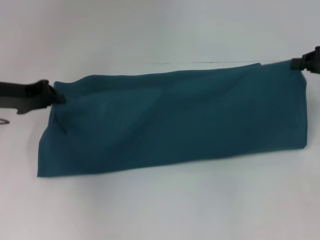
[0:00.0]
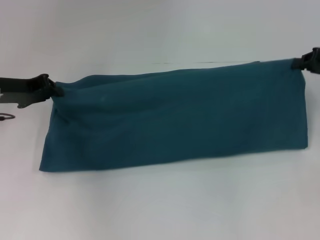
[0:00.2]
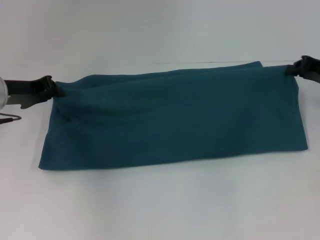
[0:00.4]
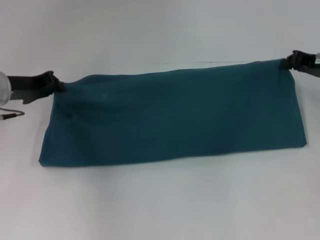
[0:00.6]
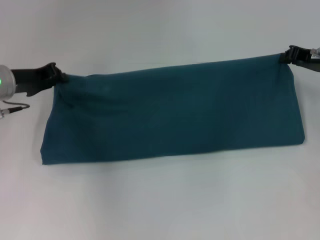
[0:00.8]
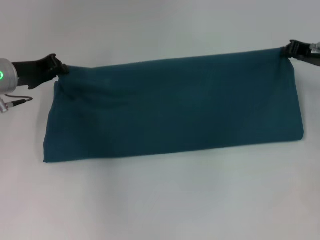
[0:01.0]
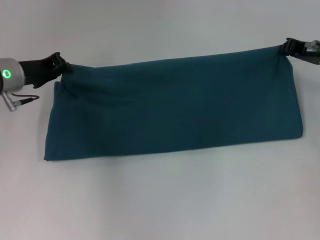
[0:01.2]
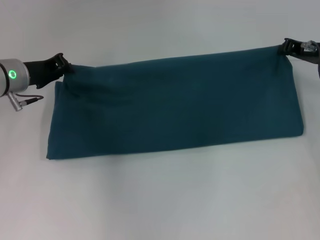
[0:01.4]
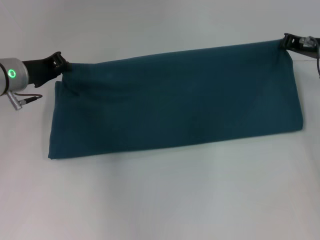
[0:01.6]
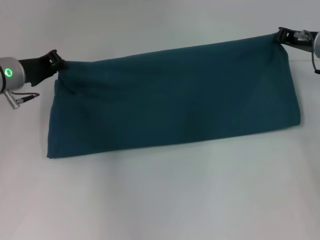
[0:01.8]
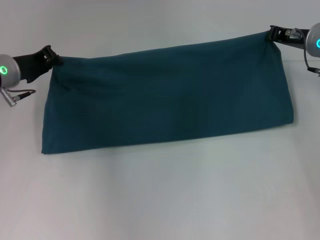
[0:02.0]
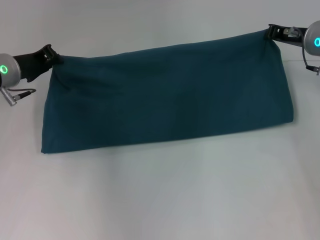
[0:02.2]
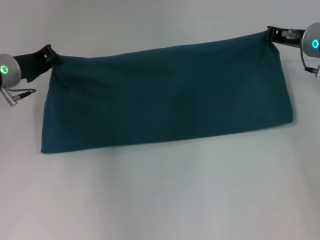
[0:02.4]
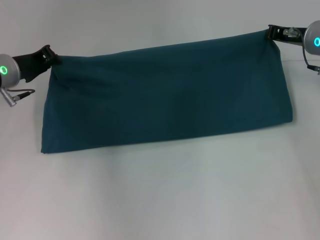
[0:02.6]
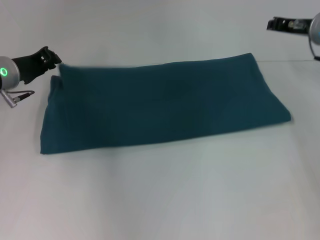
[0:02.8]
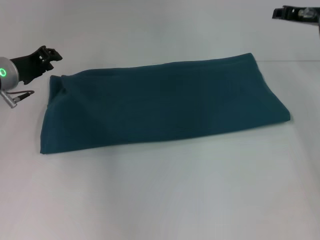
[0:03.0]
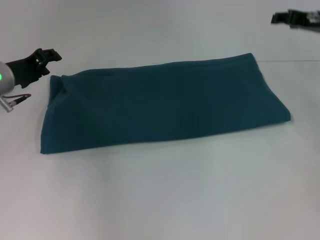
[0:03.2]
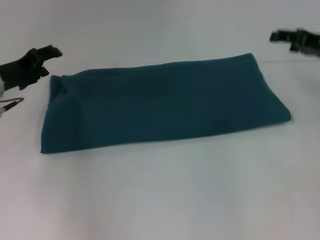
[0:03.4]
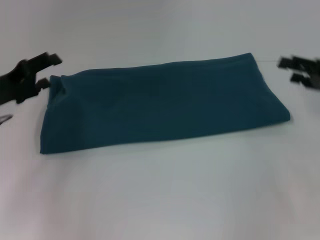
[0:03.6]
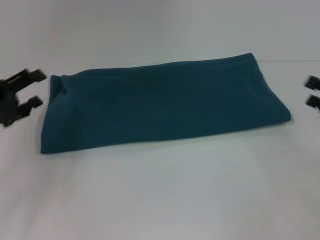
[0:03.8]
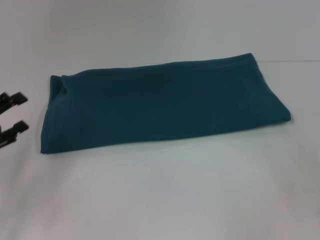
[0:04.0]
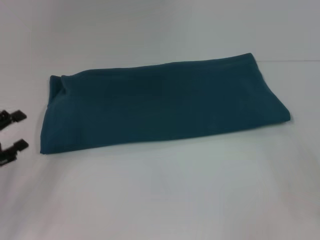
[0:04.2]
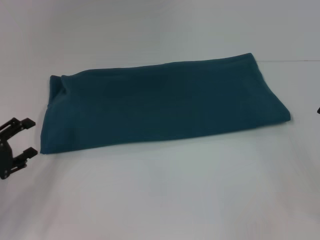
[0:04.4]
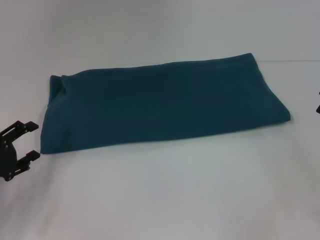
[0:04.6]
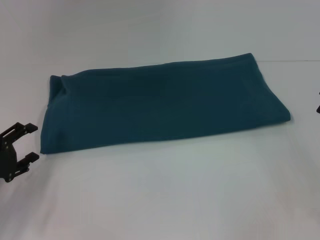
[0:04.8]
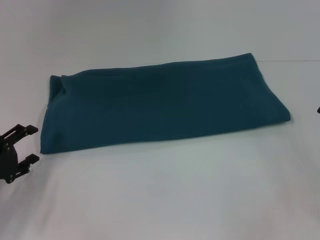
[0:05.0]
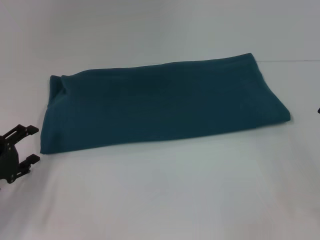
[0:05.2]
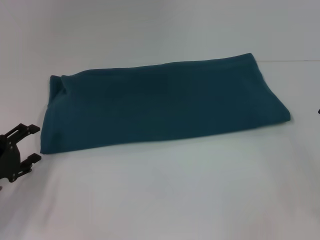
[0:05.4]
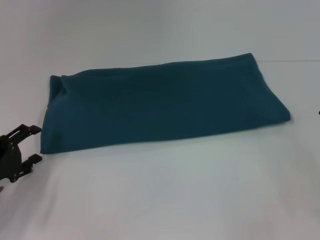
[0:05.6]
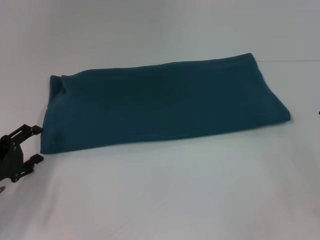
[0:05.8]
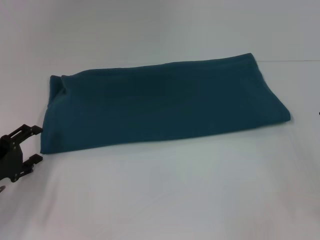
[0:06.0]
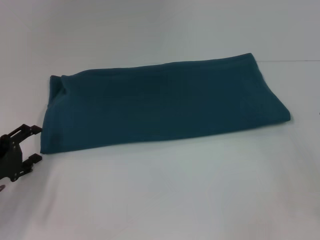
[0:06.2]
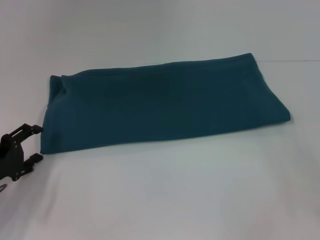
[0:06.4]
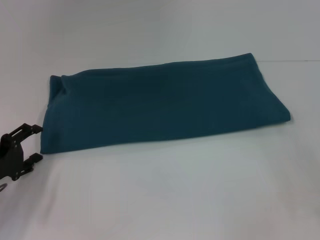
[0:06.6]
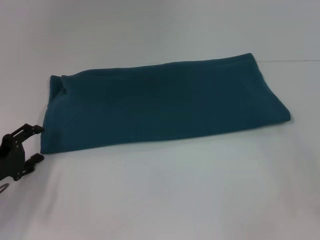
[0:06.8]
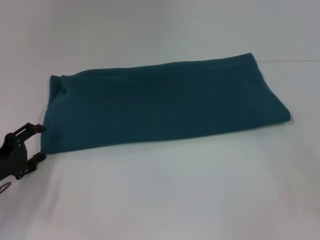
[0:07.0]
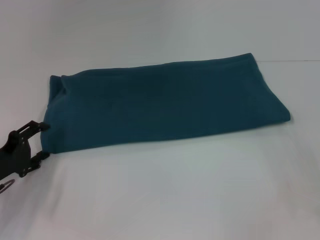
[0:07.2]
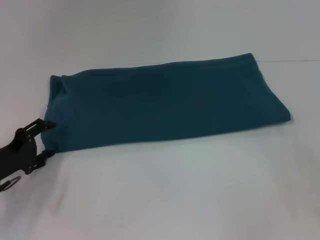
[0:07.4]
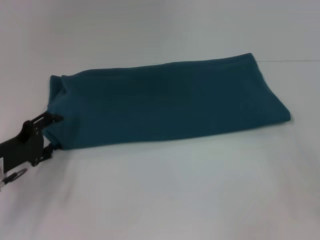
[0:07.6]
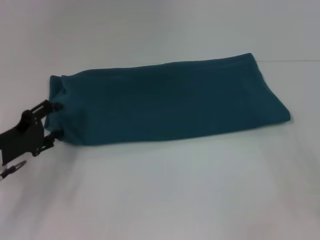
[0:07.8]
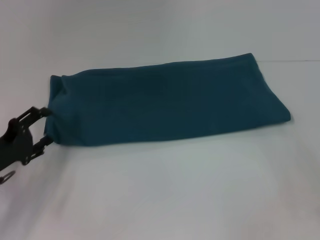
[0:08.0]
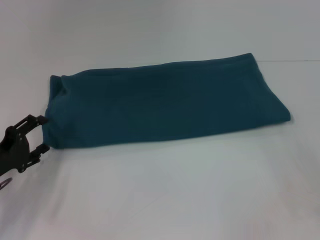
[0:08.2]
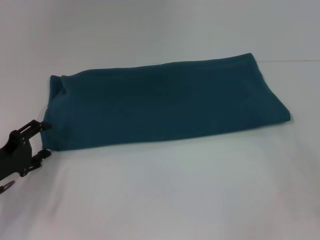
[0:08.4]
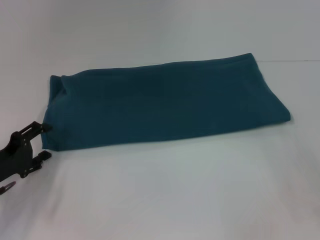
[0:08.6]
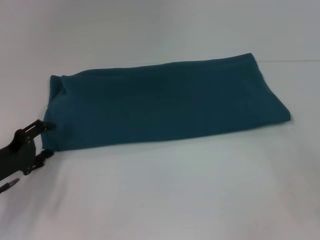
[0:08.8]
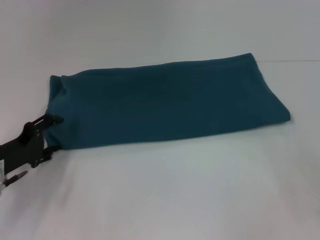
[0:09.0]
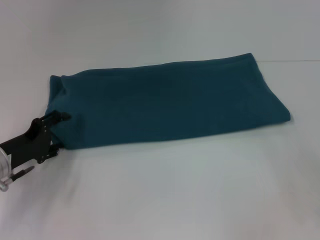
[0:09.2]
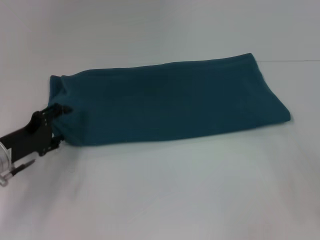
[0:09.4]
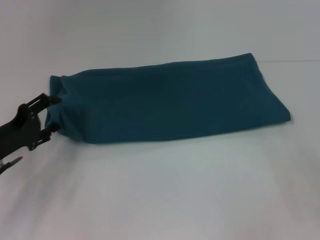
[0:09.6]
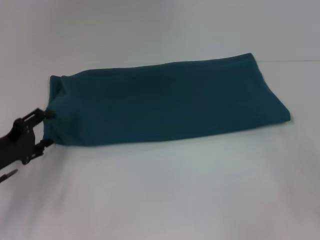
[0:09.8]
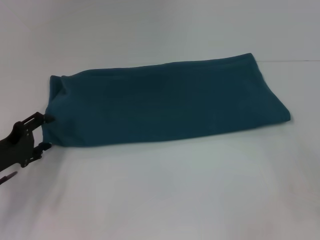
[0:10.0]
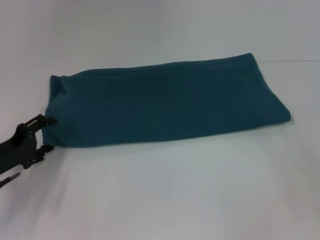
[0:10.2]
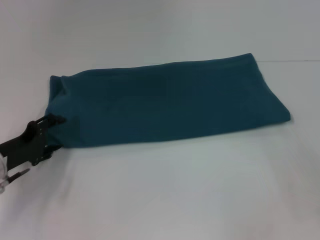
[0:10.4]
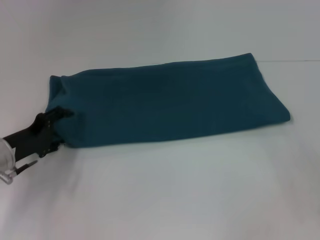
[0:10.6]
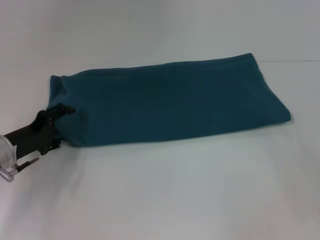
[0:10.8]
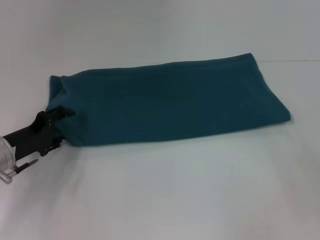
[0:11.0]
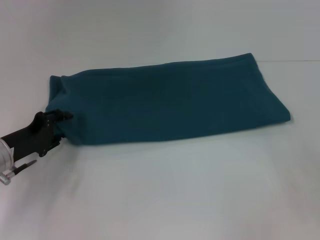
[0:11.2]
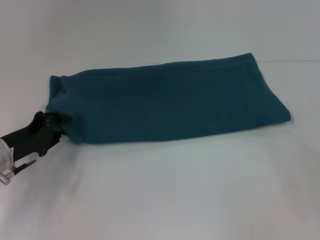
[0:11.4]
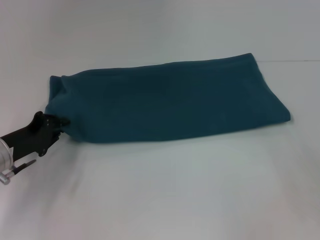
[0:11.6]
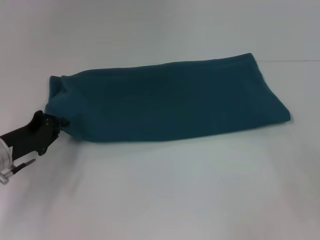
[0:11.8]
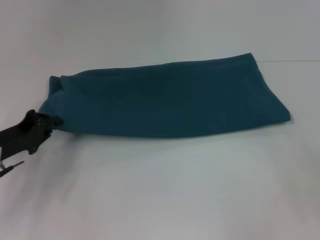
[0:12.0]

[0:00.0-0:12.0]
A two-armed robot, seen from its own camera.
Step, 0:00.0 to 0:03.0: Fold the clothes to the right.
0:00.0 to 0:01.6: The right gripper goes approximately 10 cm to the left and forward, while the left gripper ends up approximately 5 cm from where it was.
0:01.6 to 0:03.0: The grippers move only a little.
0:03.0 to 0:04.4: The right gripper is displaced backward and to the right by approximately 25 cm, and opens, while the left gripper shifts some 15 cm backward, and opens.
0:04.4 to 0:06.0: The grippers make only small movements.
0:06.0 to 0:07.6: There are only small adjustments of the grippers.
0:10.4 to 0:12.0: The left gripper closes up.

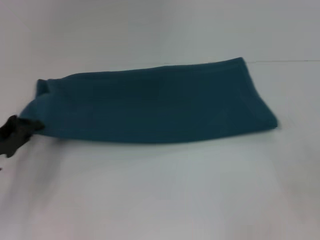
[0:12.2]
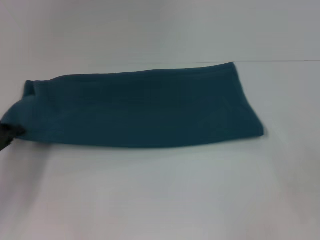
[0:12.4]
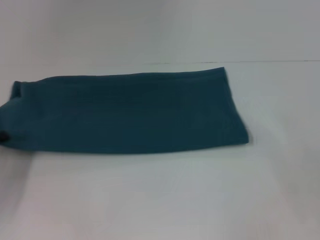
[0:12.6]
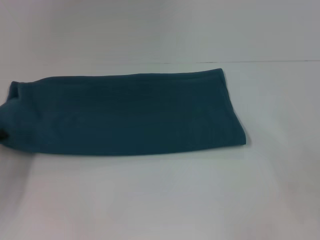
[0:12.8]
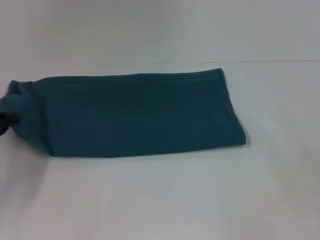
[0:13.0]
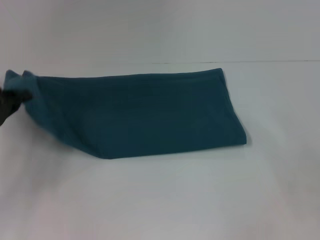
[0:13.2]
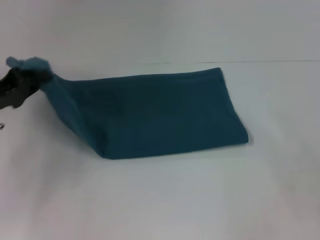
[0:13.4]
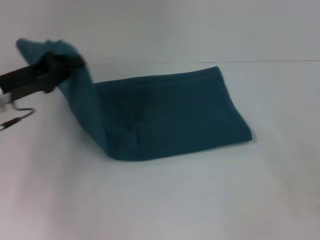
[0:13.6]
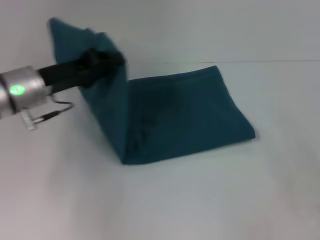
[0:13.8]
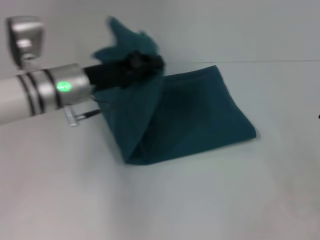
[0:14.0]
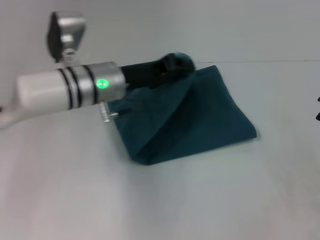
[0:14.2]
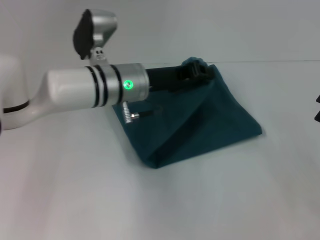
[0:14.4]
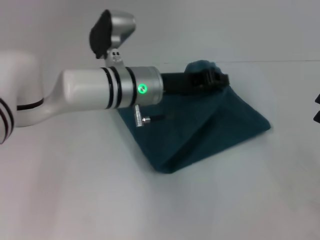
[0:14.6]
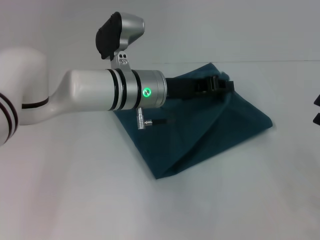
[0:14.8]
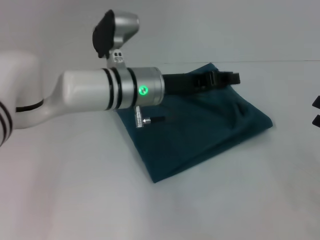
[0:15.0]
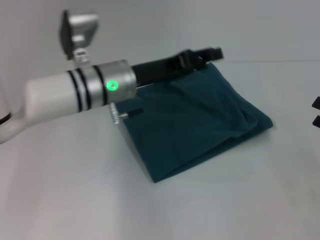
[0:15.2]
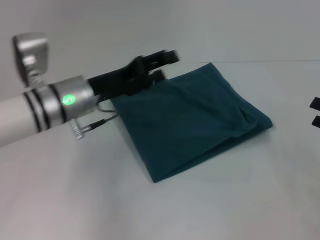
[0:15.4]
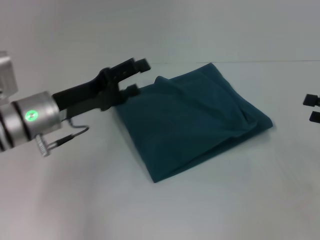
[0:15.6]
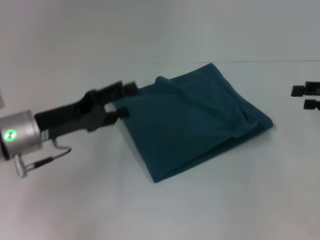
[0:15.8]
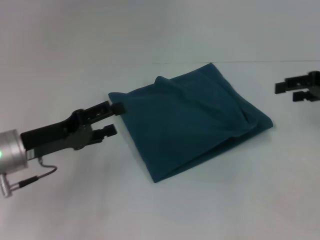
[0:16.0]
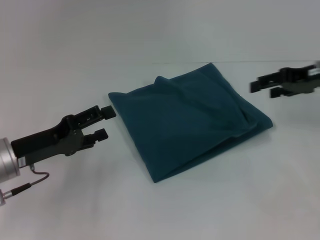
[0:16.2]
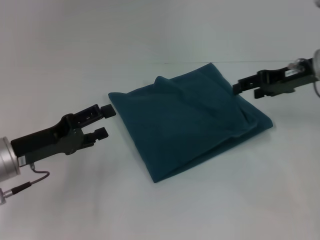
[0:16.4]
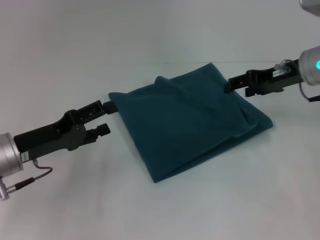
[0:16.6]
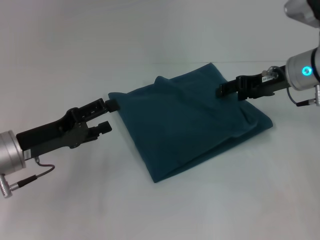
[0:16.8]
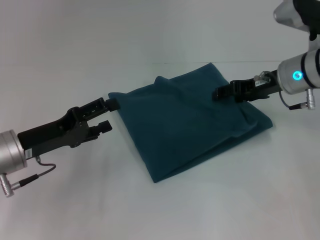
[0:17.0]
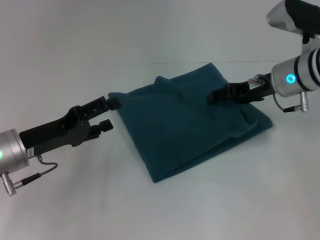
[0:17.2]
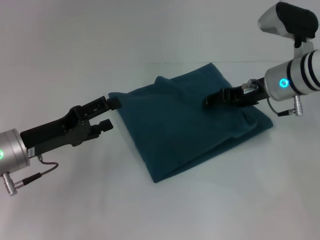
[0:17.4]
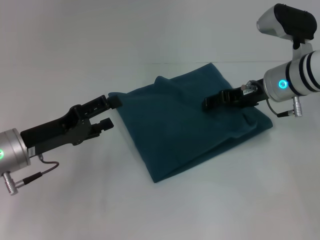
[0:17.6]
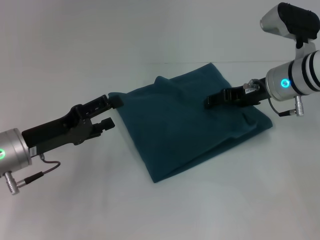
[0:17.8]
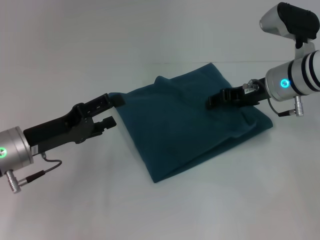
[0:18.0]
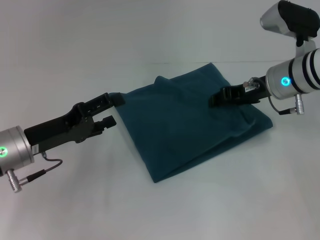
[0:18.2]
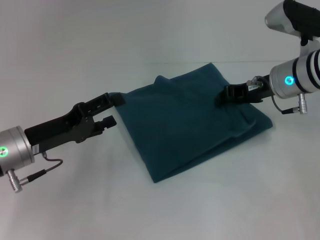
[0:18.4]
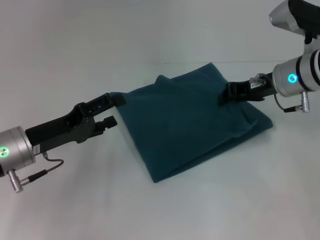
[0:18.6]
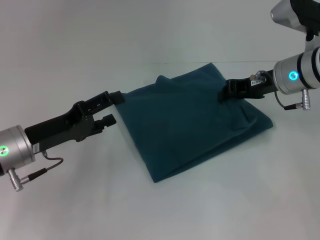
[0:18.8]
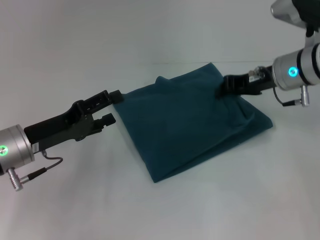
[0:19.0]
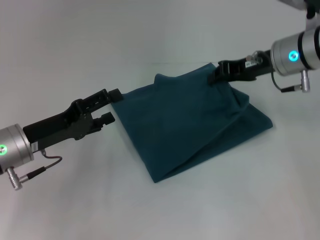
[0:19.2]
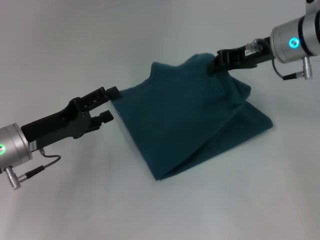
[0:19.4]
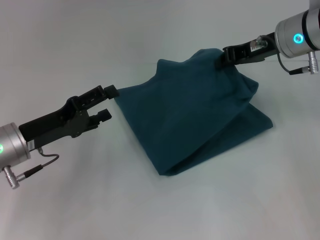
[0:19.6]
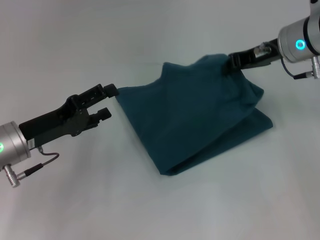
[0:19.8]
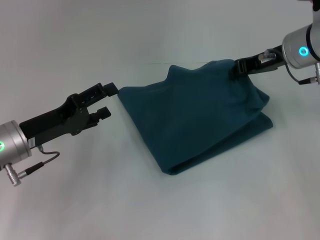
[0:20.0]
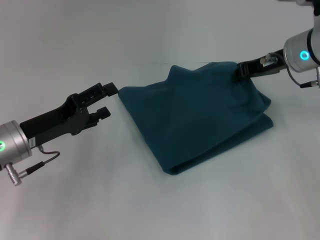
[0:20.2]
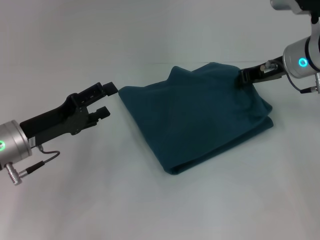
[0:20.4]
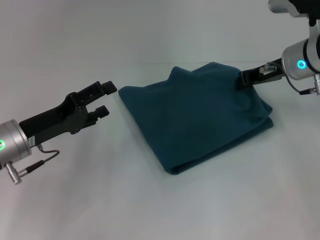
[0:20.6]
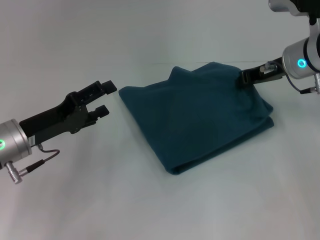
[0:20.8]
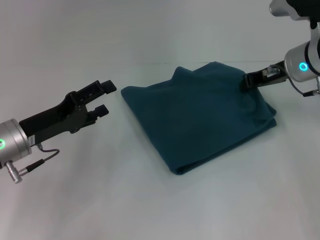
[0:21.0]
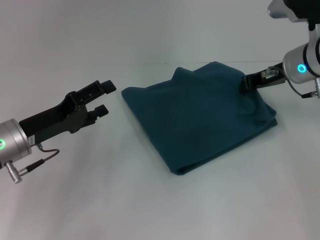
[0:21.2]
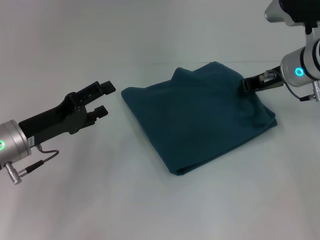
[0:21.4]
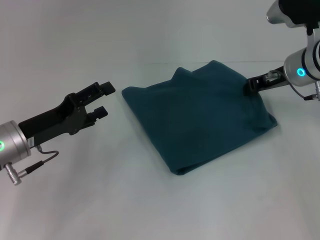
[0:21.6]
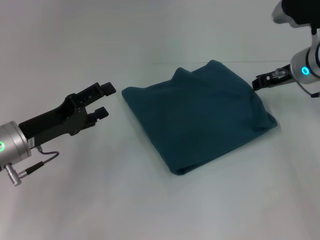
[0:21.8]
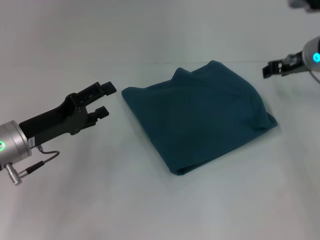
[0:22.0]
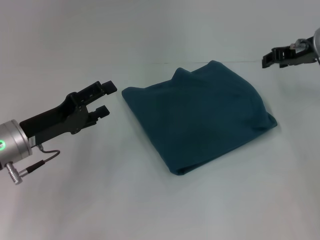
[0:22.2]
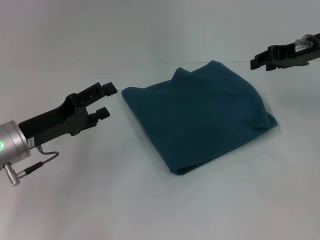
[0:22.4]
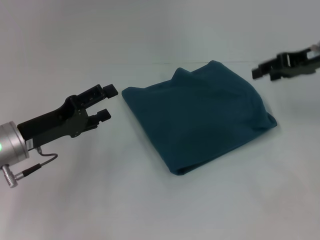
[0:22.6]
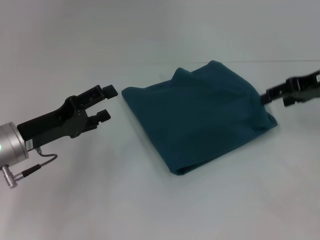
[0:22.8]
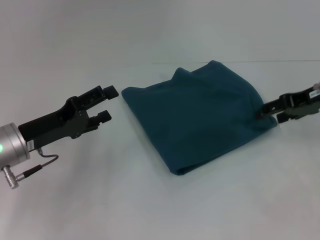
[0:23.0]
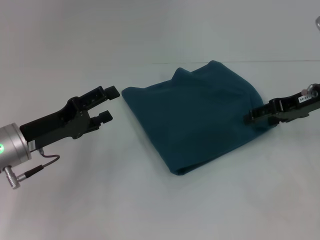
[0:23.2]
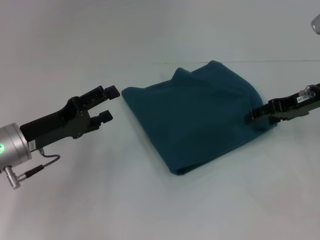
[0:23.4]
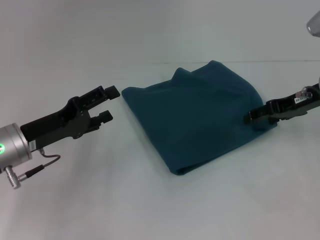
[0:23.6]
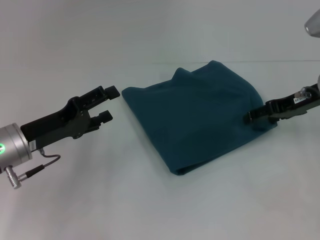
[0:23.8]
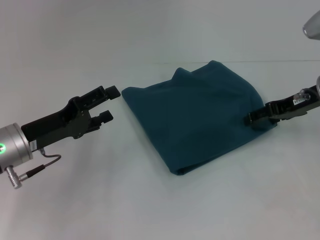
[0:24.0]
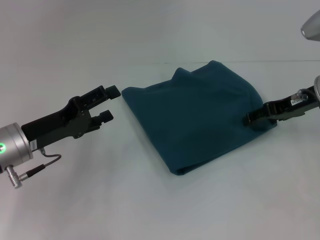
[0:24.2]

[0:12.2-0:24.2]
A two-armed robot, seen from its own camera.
Step, 0:12.2 to 0:15.0: Fold the clothes to the left.
0:12.2 to 0:13.8: The left gripper is displaced to the right, upward and forward by approximately 15 cm.
0:13.8 to 0:15.2: The left gripper goes roughly 10 cm to the right, and opens up.
0:15.2 to 0:16.6: The right gripper goes roughly 20 cm forward, to the left and upward; the left gripper moves to the left and backward, about 20 cm, and opens its fingers.
0:16.6 to 0:18.2: The right gripper shifts by about 5 cm.
0:18.2 to 0:19.8: The right gripper heads upward, covering roughly 5 cm, and closes.
0:19.8 to 0:21.2: The grippers make only small movements.
0:21.2 to 0:22.6: The right gripper heads to the right, covering approximately 5 cm, and opens up.
0:22.6 to 0:24.2: The right gripper goes approximately 5 cm downward, and opens up.
